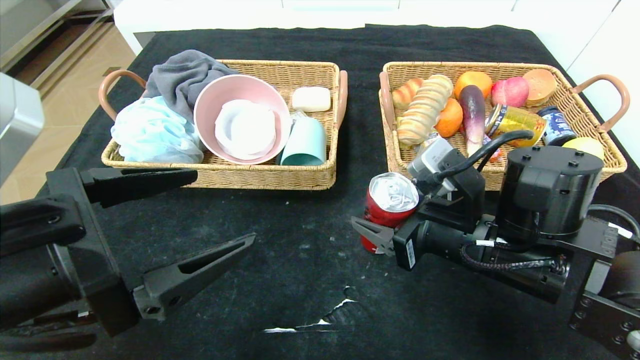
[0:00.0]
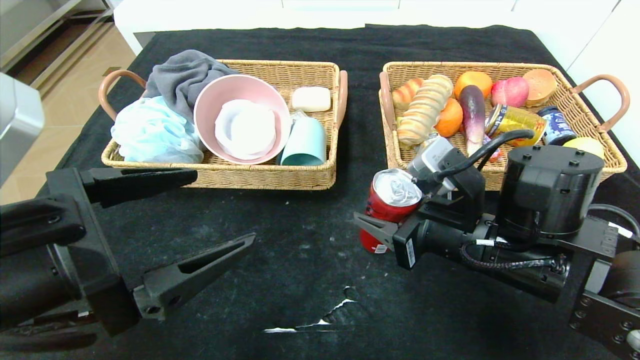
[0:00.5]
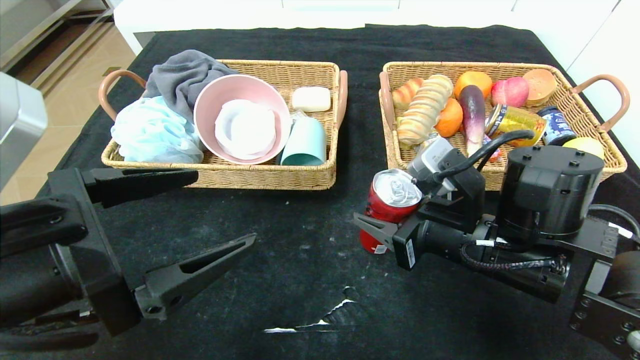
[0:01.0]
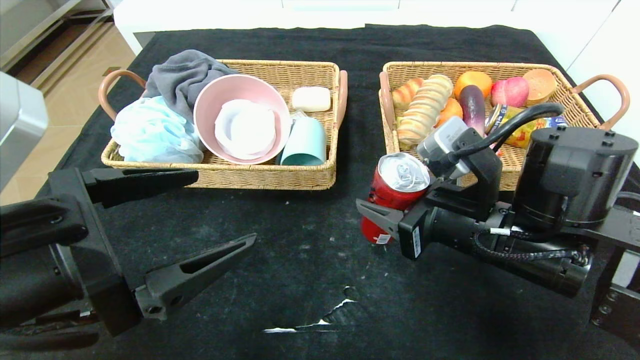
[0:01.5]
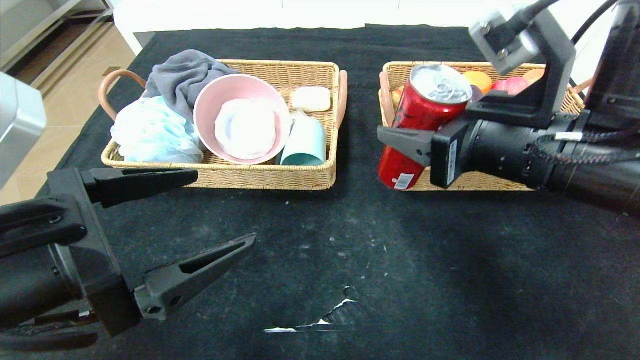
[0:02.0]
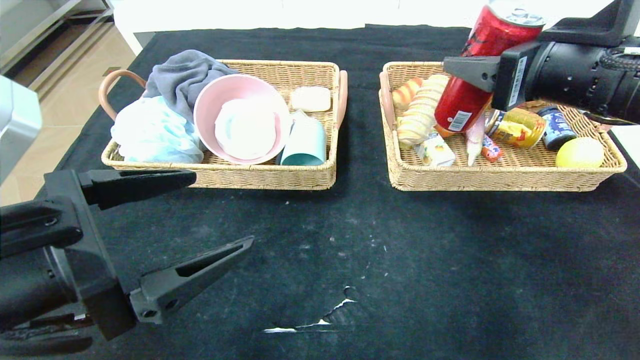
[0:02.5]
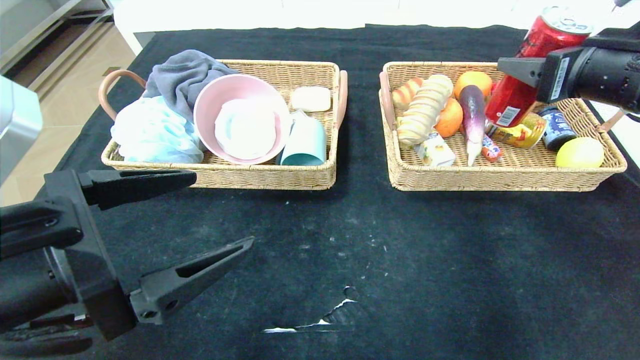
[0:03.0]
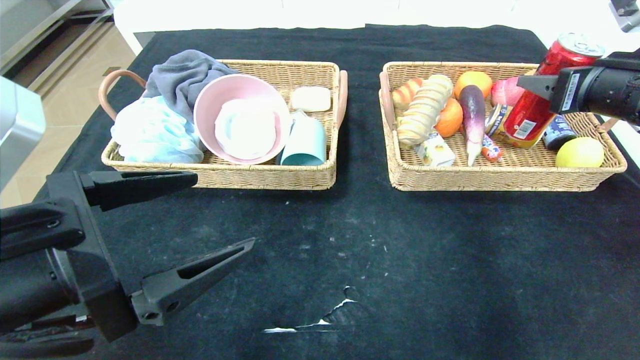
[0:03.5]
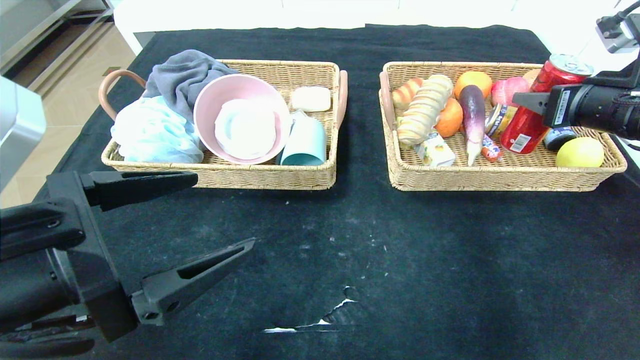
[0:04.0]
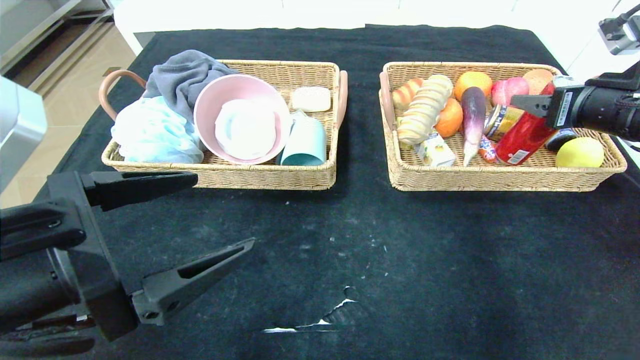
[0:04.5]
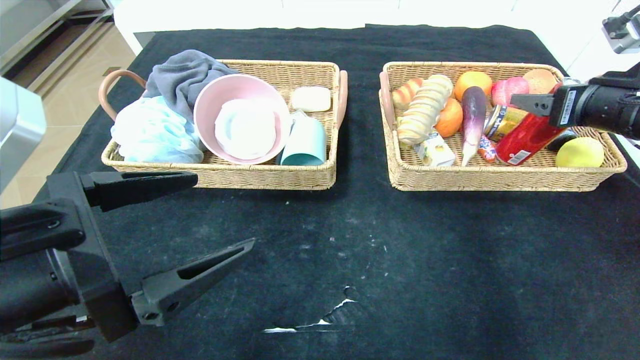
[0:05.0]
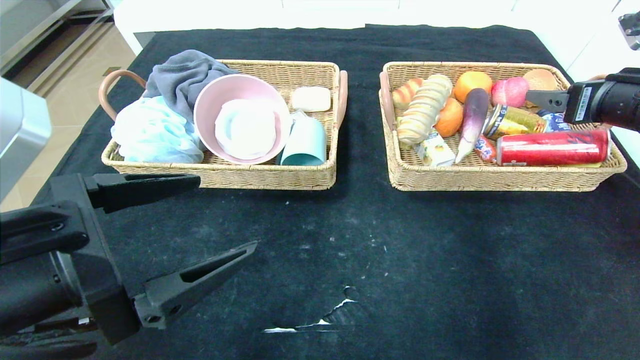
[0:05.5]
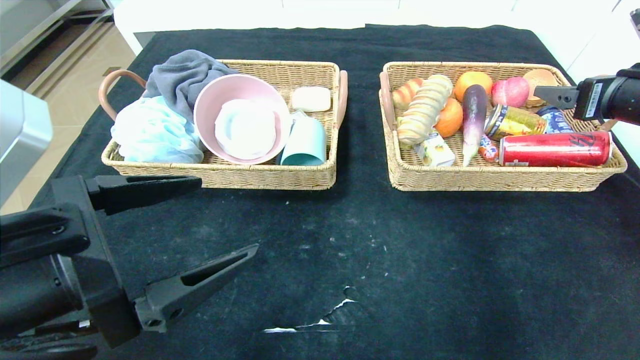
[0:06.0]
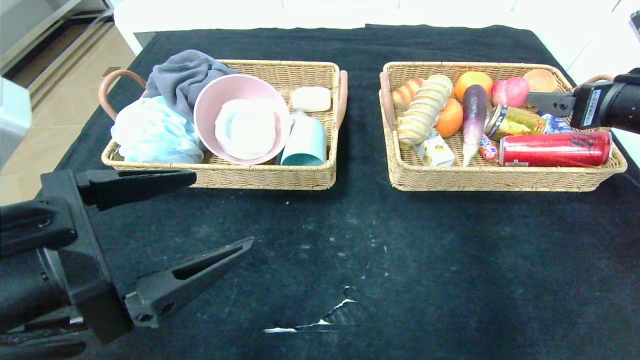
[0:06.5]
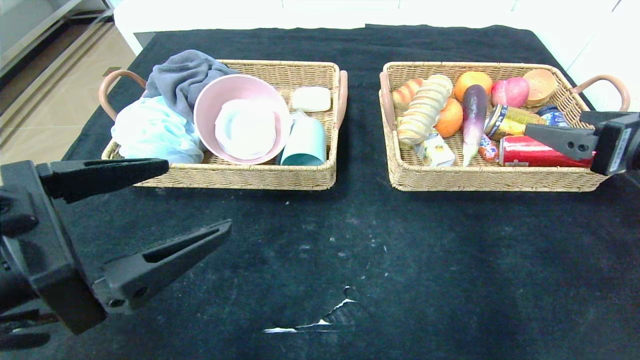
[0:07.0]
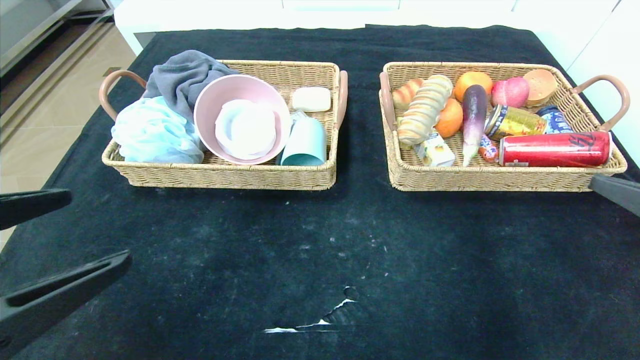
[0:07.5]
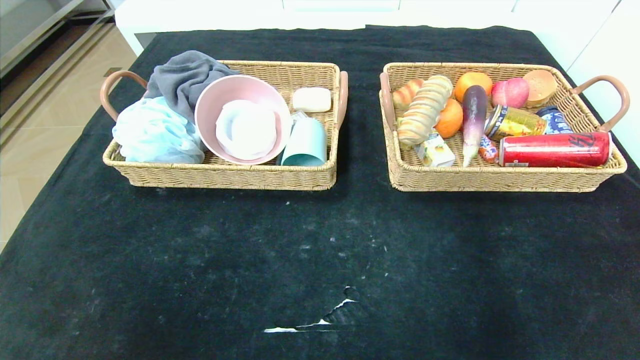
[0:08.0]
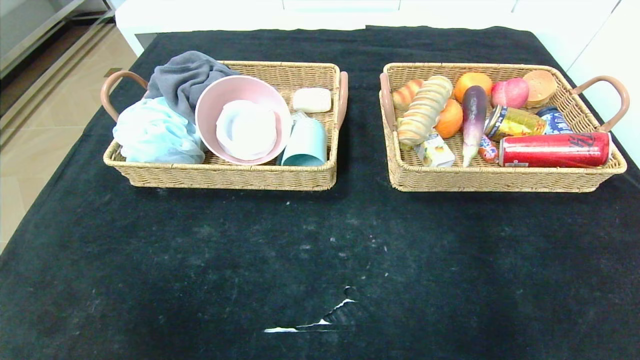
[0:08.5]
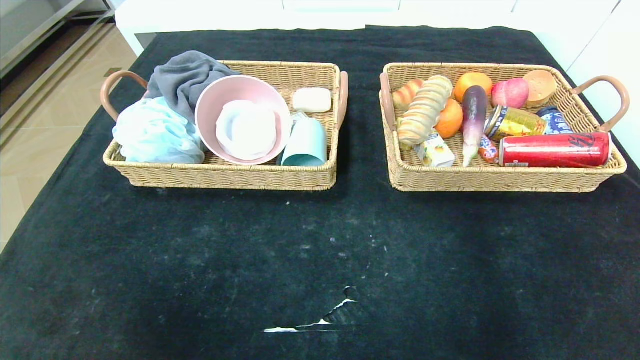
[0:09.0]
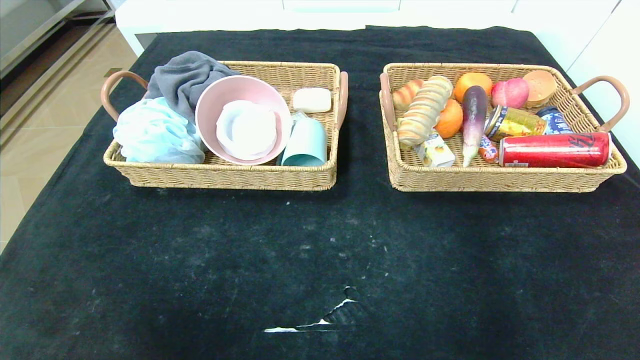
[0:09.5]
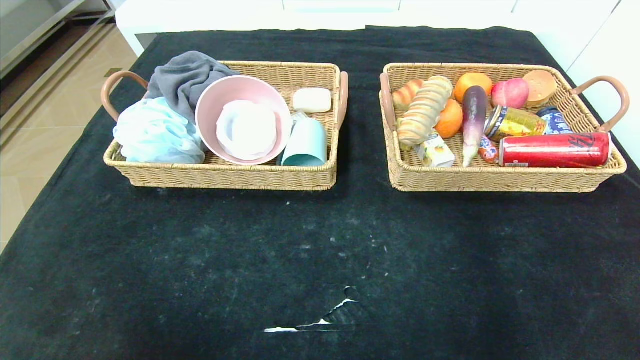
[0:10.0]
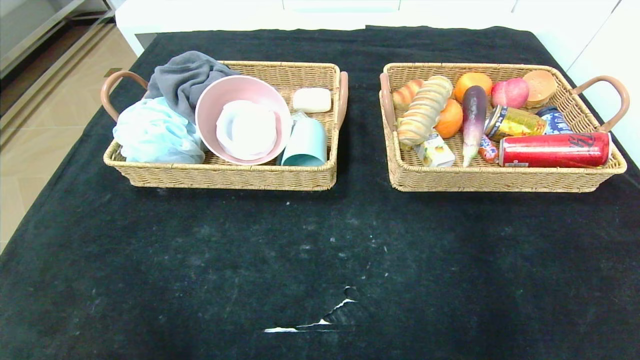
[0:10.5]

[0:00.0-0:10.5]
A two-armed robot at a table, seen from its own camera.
Step, 0:00.0 to 0:05.5: Grasp the canned cola and put it in the right basket.
0:00.0 to 0:02.0: The right gripper shifts some 10 cm upward.
0:02.0 to 0:04.0: The right gripper shifts some 20 cm to the right and forward.
0:04.0 to 0:06.5: The right gripper opens its fingers.
0:06.5 to 0:08.5: The left gripper is displaced backward and to the left by some 25 cm. The right gripper moves backward, approximately 35 cm.

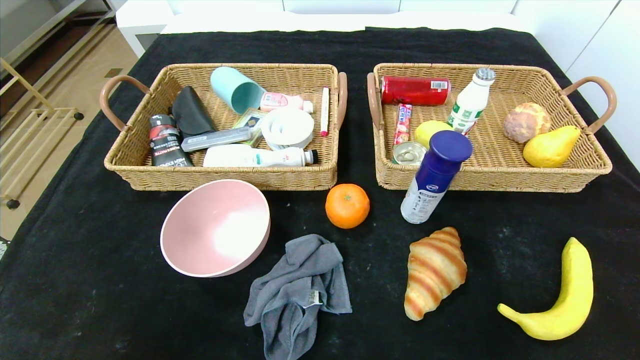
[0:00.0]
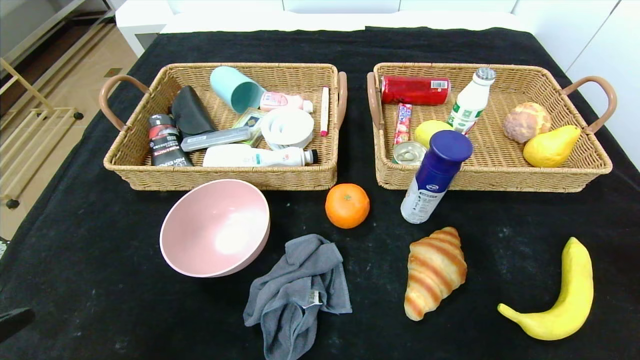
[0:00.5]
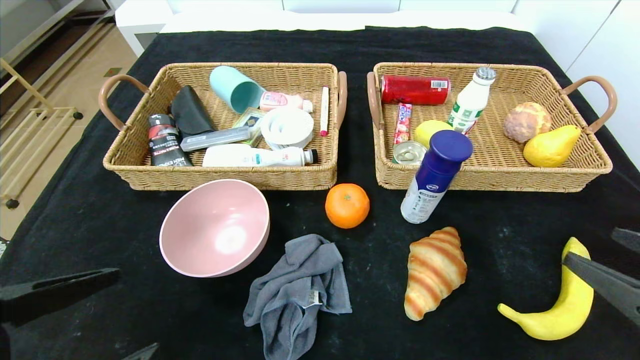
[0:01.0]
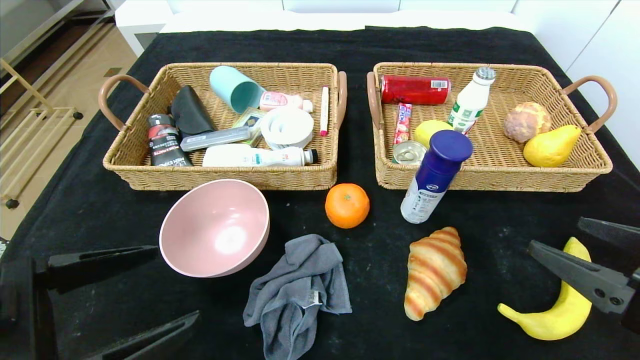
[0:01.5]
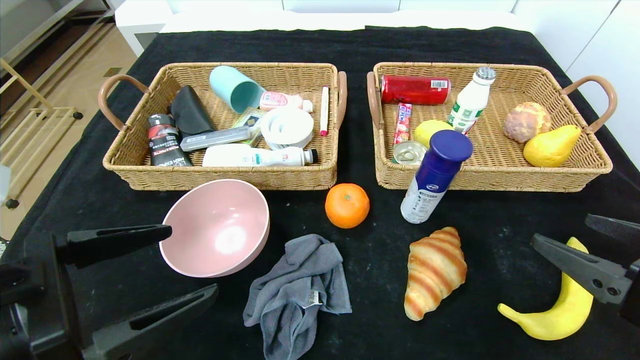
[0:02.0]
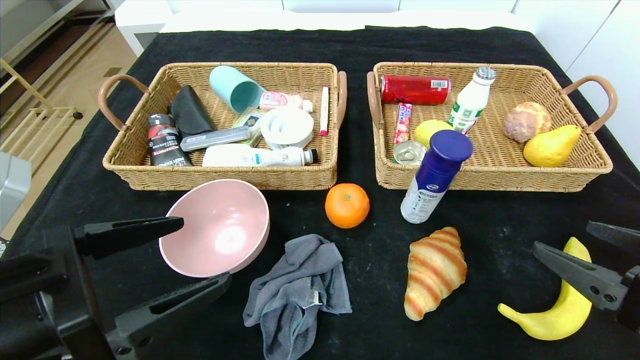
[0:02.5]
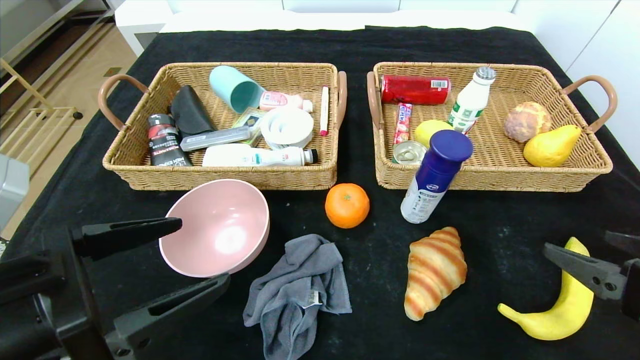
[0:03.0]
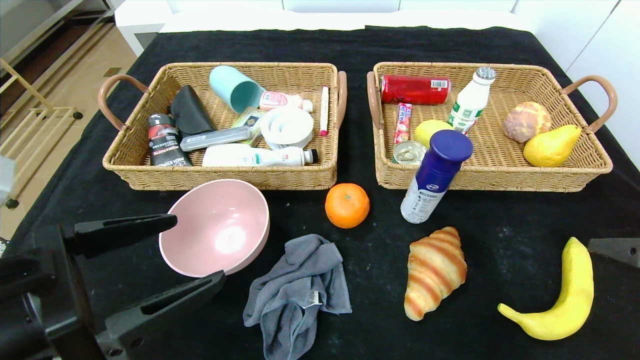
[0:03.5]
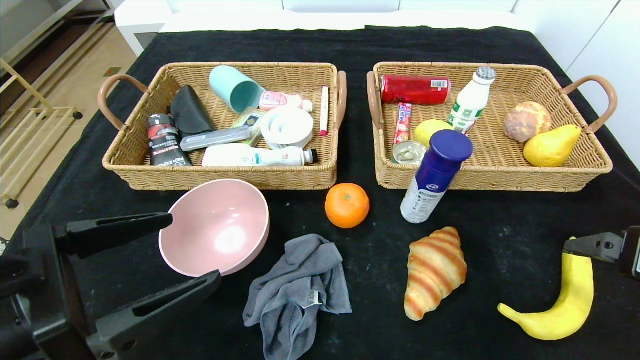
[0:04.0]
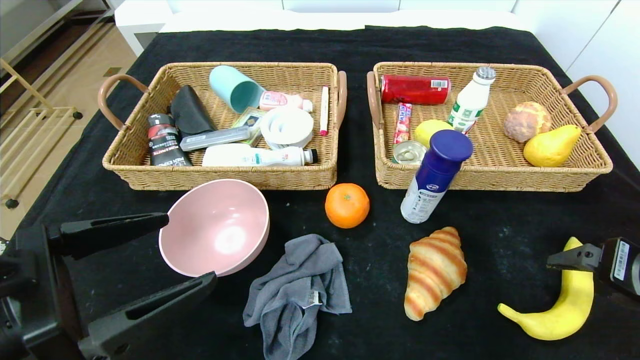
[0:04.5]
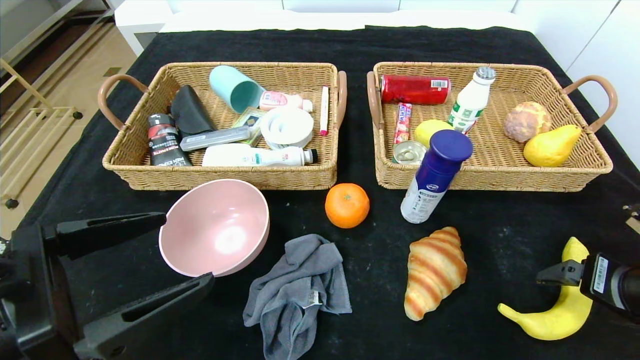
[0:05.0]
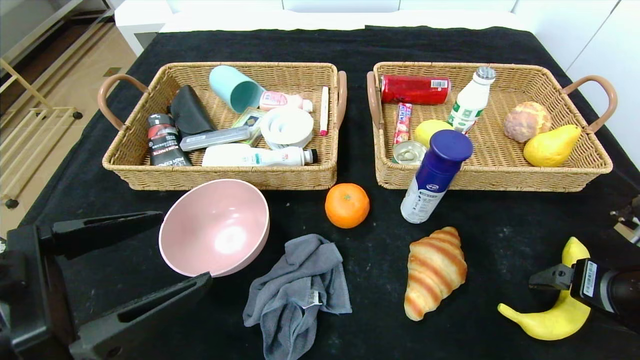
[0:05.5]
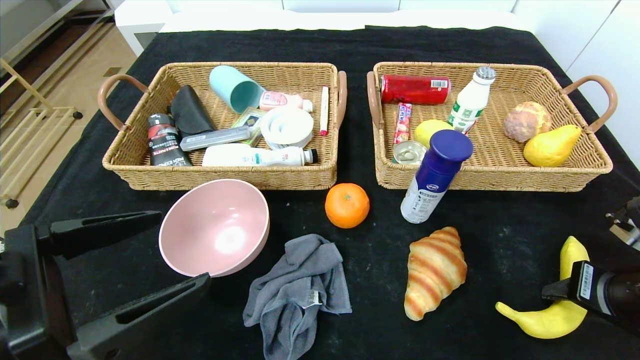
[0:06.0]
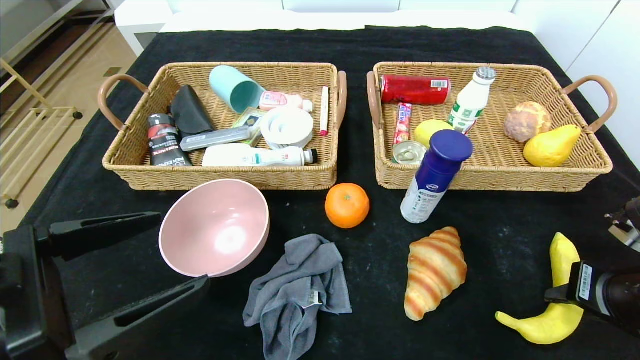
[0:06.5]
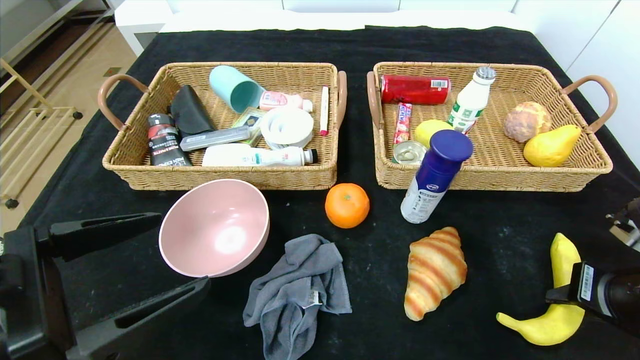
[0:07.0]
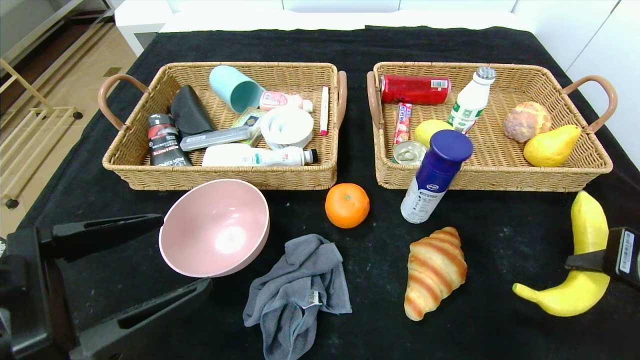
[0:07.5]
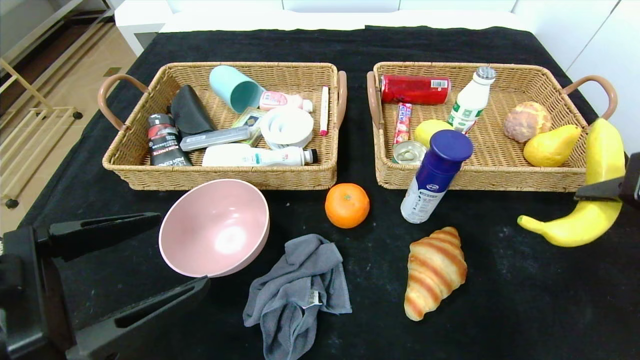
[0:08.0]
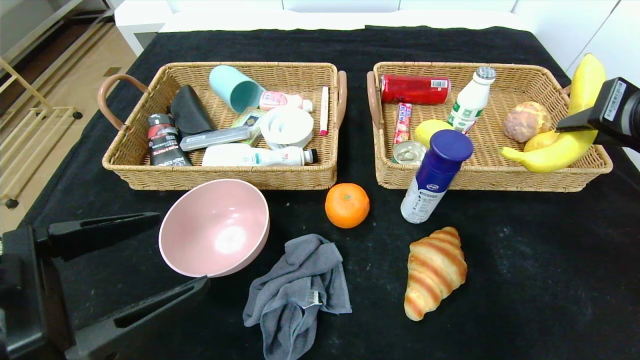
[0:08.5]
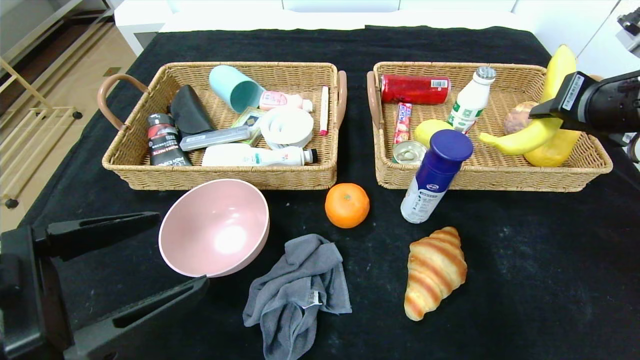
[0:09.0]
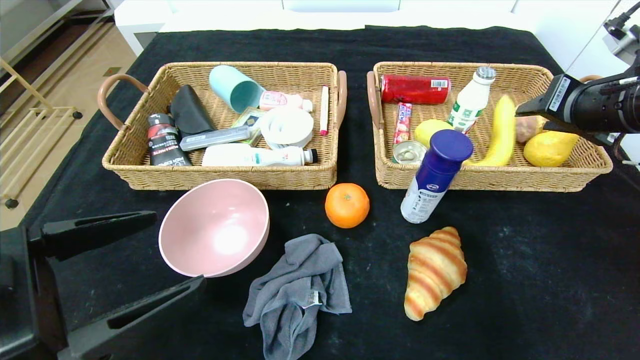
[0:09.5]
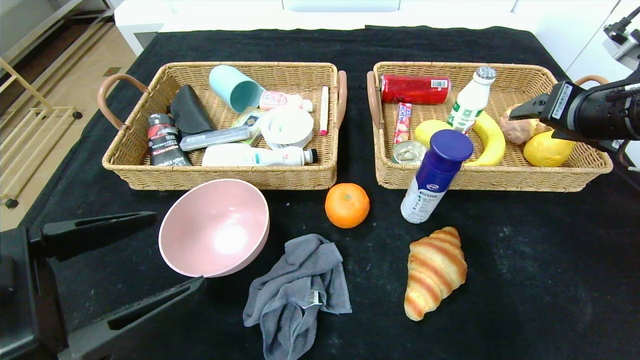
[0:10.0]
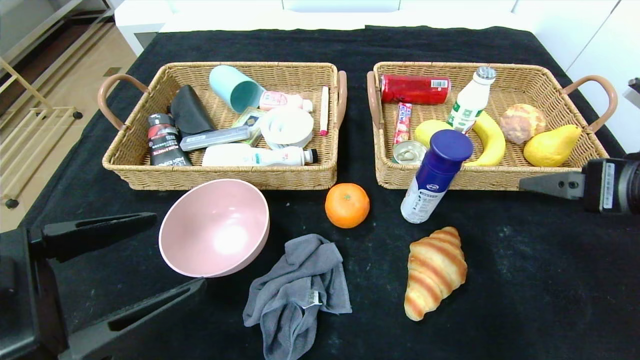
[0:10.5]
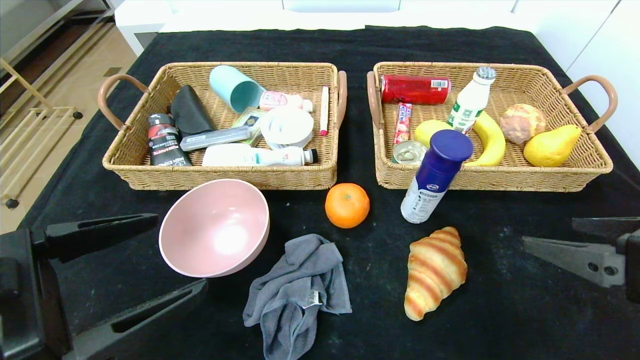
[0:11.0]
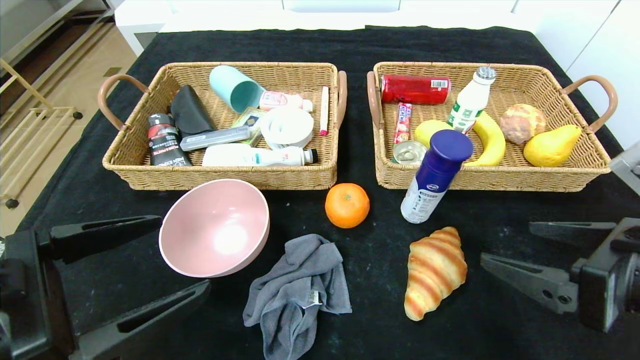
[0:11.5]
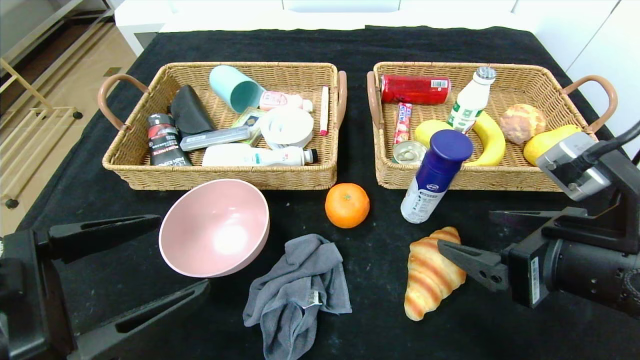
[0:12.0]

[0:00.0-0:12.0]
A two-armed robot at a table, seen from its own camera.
Step, 0:00.0 to 0:09.5: Grasp the banana and put it in the right basket.
0:00.0 to 0:02.0: The left gripper shifts roughly 20 cm forward, upward and to the right; the right gripper goes some 15 cm forward, upward and to the left.
0:04.0 to 0:06.0: The right gripper is displaced downward by approximately 5 cm, and closes up.
0:06.0 to 0:08.0: The right gripper is displaced upward by about 10 cm.
0:08.0 to 0:10.0: The right gripper moves forward, approximately 10 cm, and opens its fingers.
0:10.0 to 0:12.0: The right gripper goes some 15 cm backward, to the left and downward.
